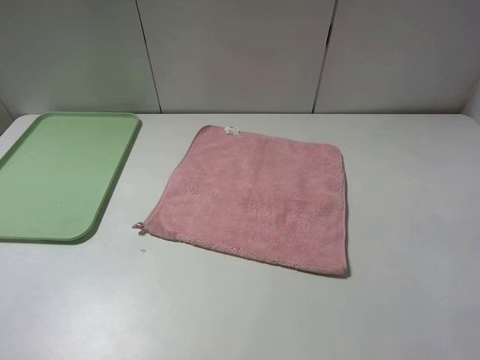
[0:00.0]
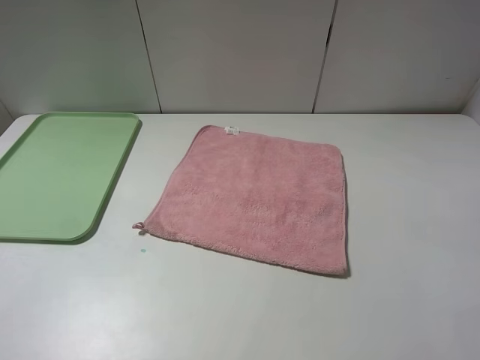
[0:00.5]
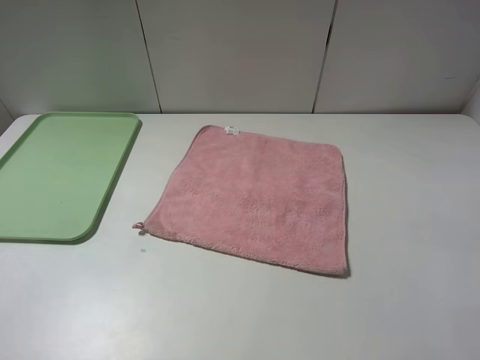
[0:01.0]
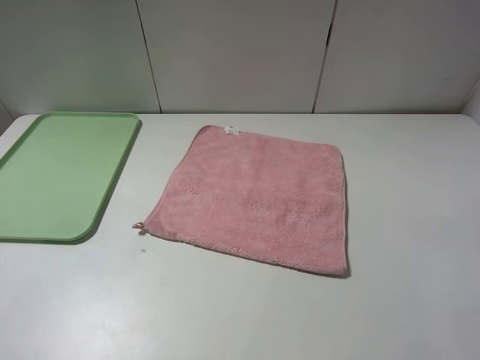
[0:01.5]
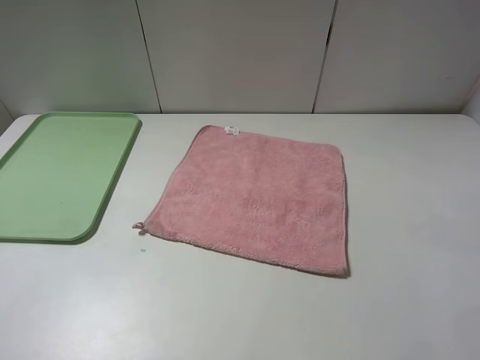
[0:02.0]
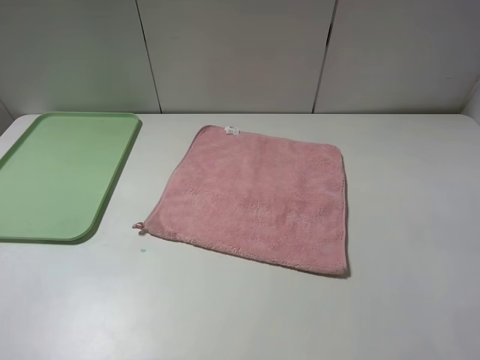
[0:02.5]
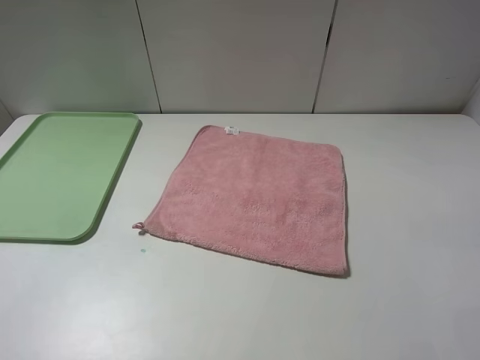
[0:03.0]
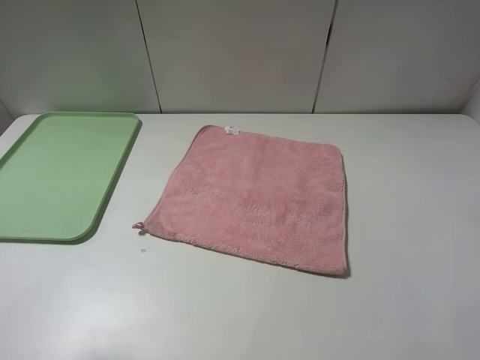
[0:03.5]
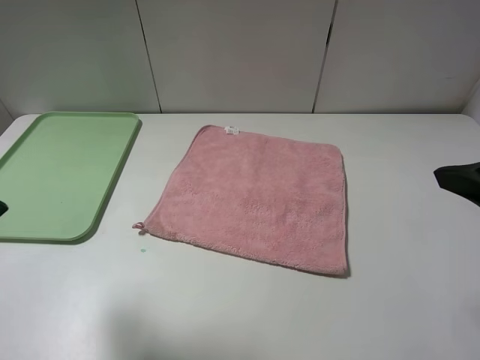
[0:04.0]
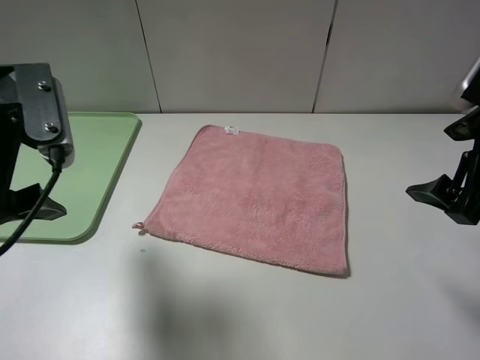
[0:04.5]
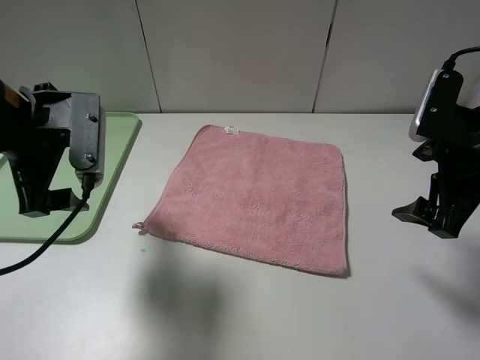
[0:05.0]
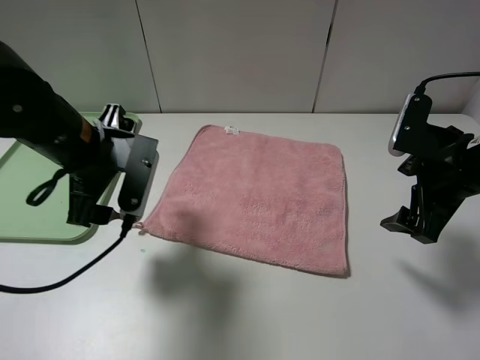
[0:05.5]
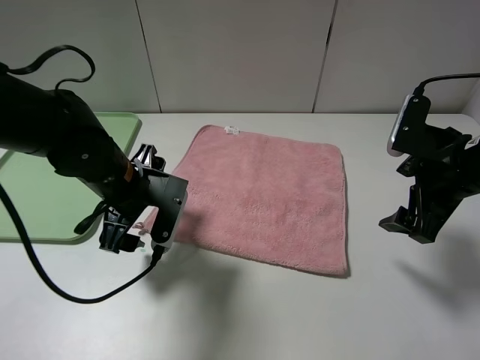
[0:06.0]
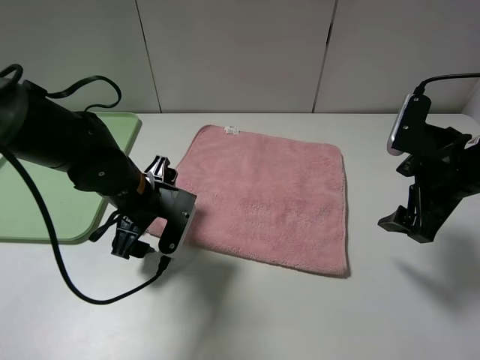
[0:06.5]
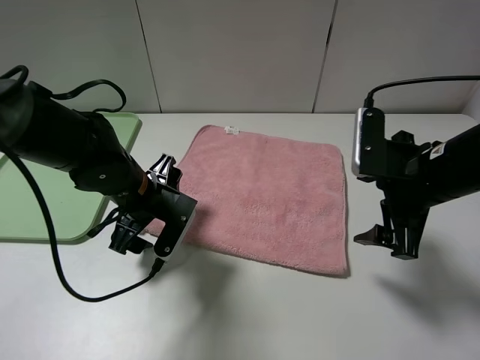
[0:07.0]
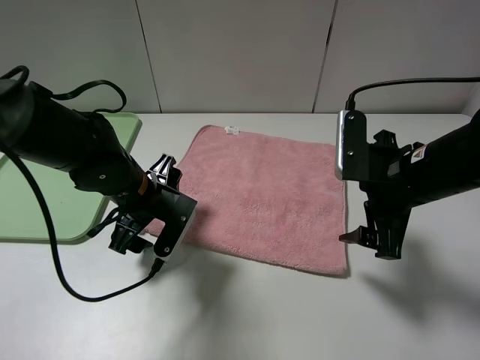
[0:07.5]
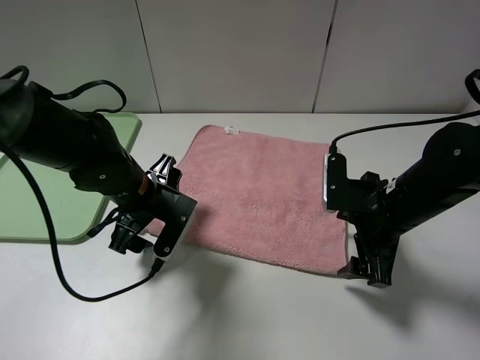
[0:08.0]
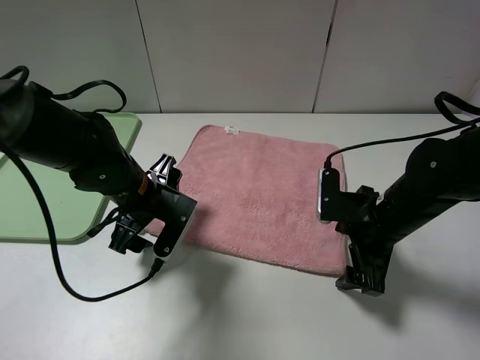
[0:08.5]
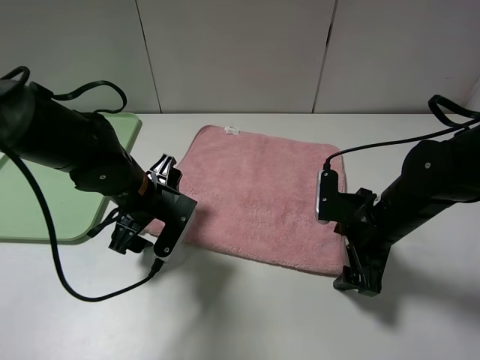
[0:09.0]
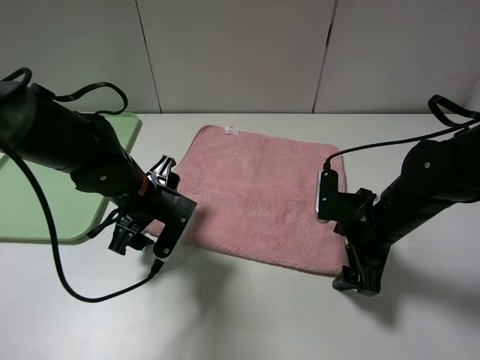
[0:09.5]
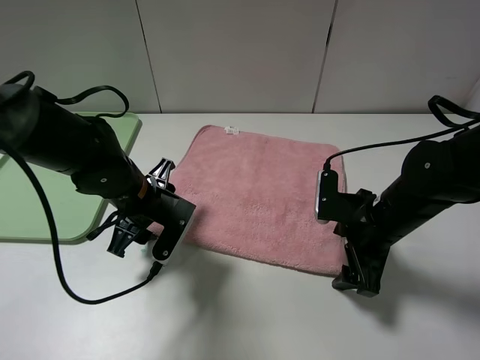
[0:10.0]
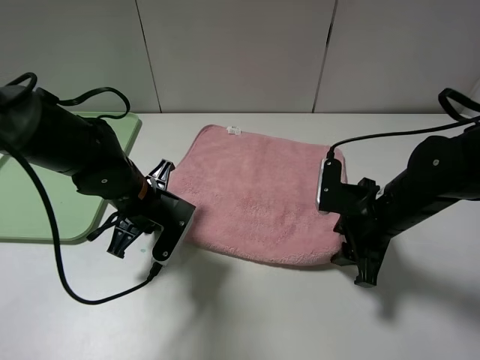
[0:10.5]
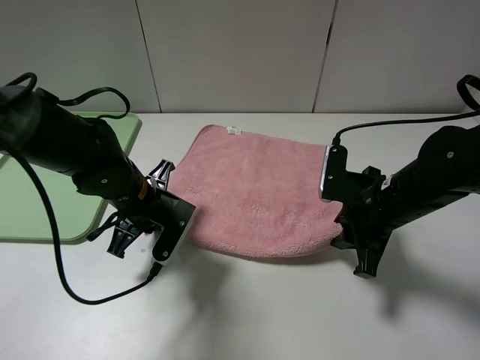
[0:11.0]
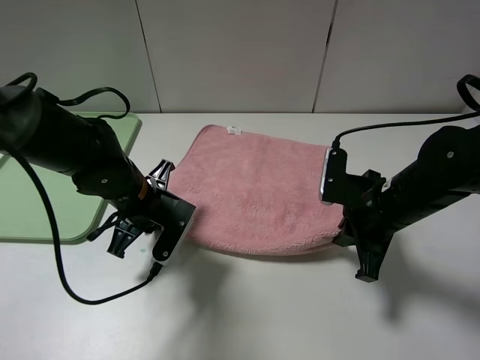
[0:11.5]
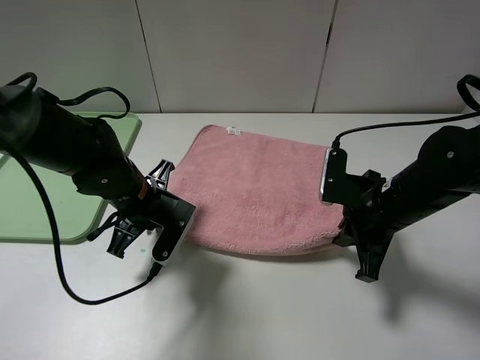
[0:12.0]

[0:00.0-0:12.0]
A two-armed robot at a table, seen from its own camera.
0:00.0 to 0:02.0: Neither gripper changes place.
0:02.0 to 0:04.0: Both grippers travel together forward, approximately 15 cm.
0:04.0 to 0:06.0: The left gripper goes roughly 25 cm downward, to the right and forward, while the right gripper is displaced downward and forward by some 15 cm.
0:06.0 to 0:08.0: The right gripper travels to the left and downward by roughly 10 cm.
0:08.0 to 0:10.0: The grippers make only small movements.
0:10.0 to 0:12.0: The right gripper closes its fingers, while the left gripper closes up.

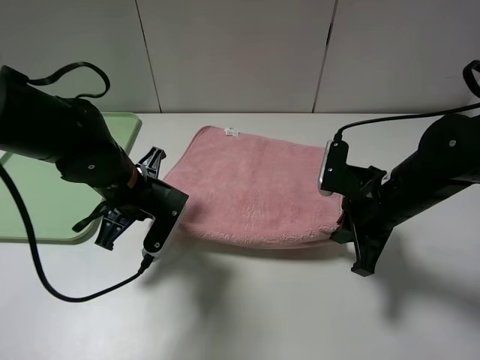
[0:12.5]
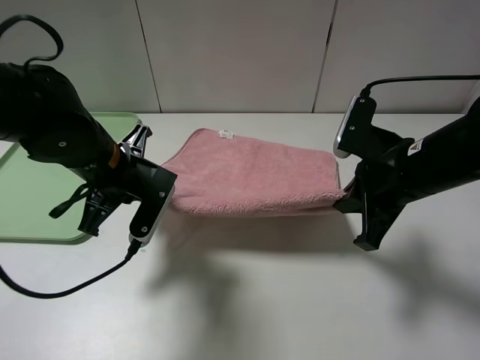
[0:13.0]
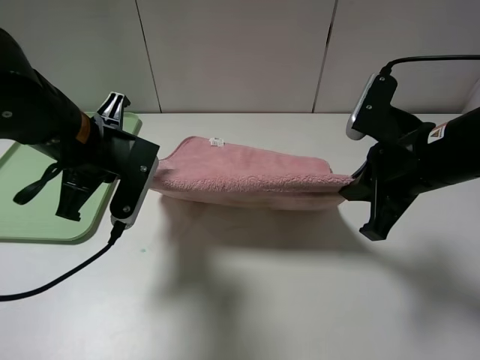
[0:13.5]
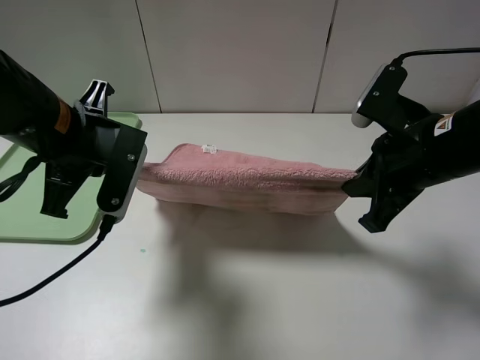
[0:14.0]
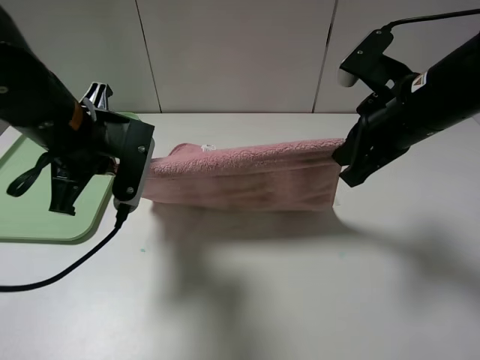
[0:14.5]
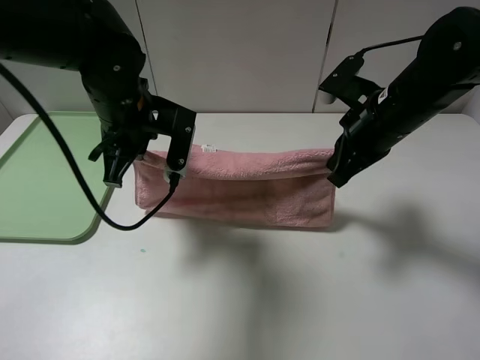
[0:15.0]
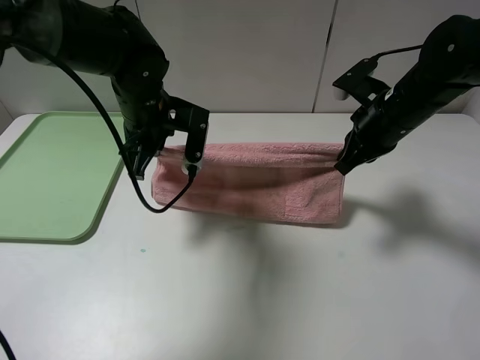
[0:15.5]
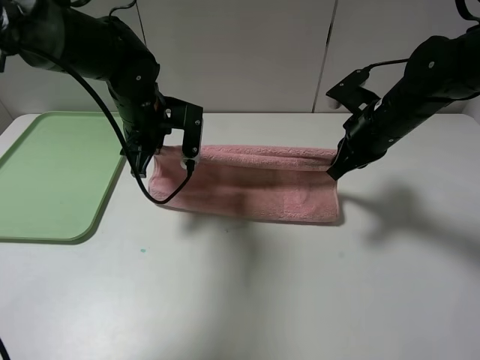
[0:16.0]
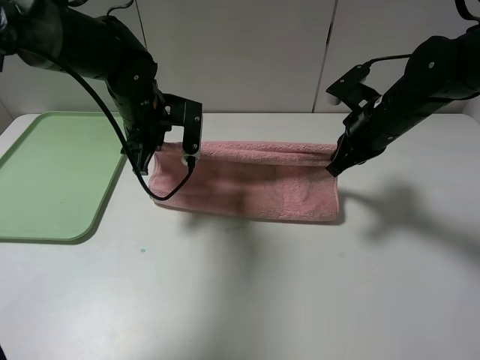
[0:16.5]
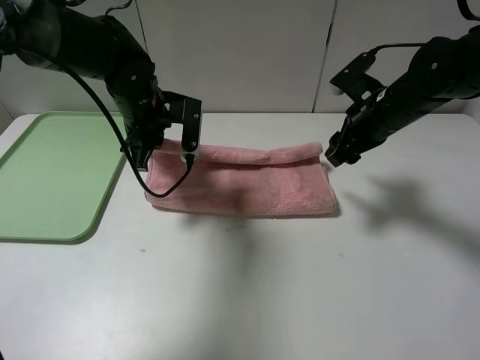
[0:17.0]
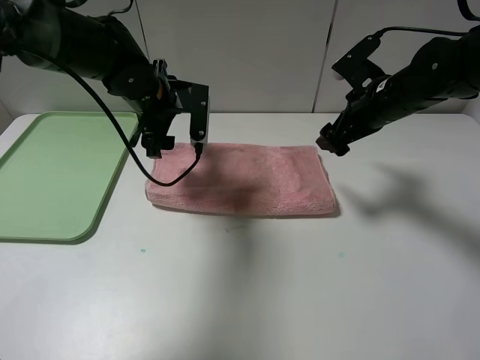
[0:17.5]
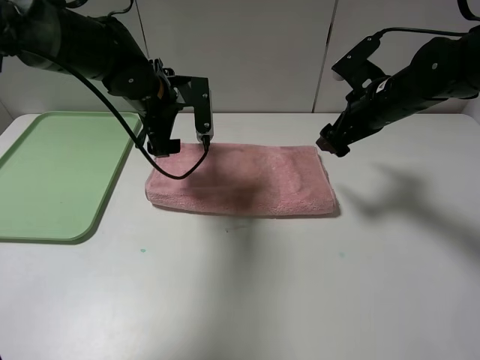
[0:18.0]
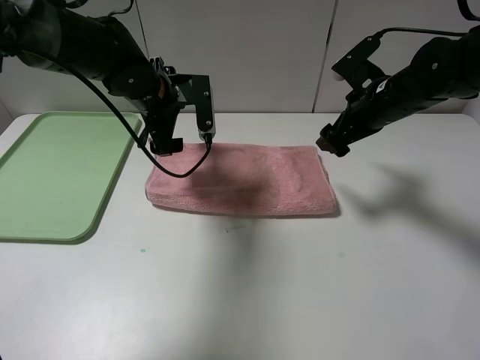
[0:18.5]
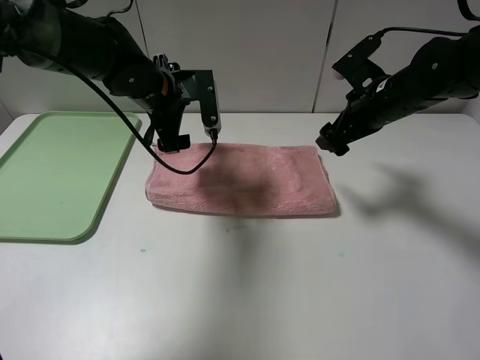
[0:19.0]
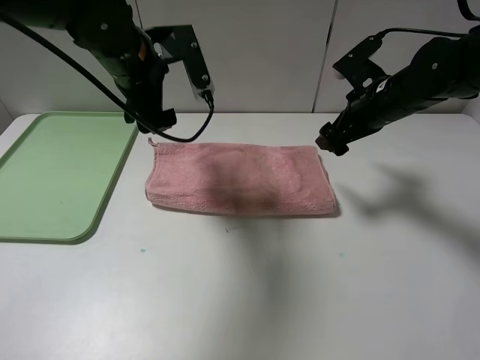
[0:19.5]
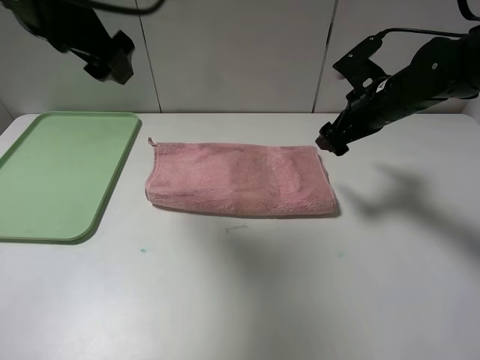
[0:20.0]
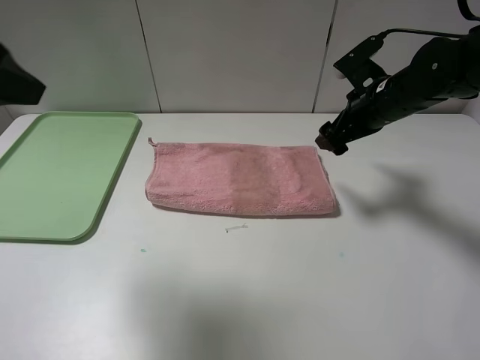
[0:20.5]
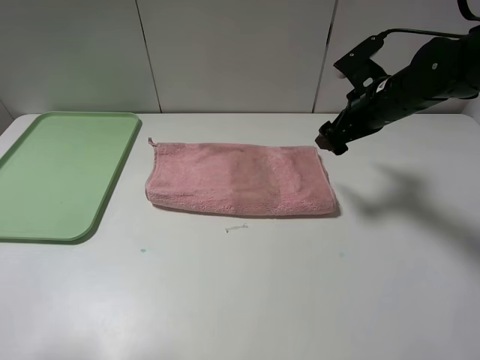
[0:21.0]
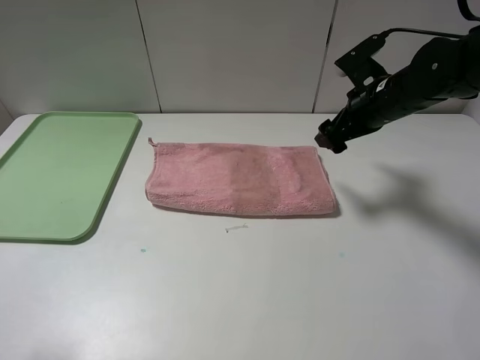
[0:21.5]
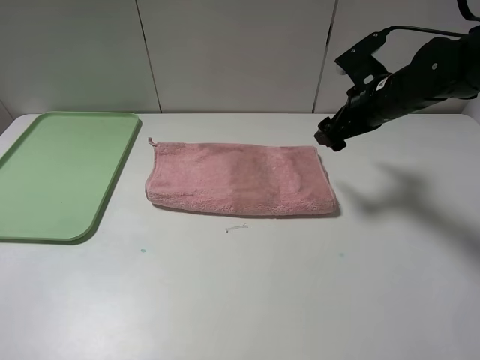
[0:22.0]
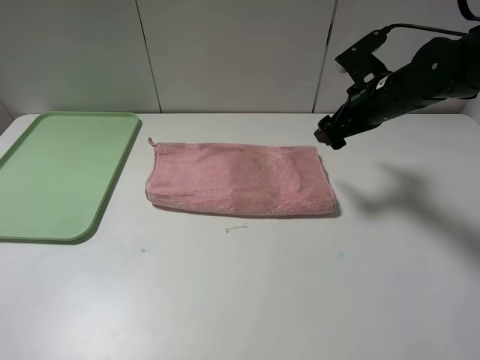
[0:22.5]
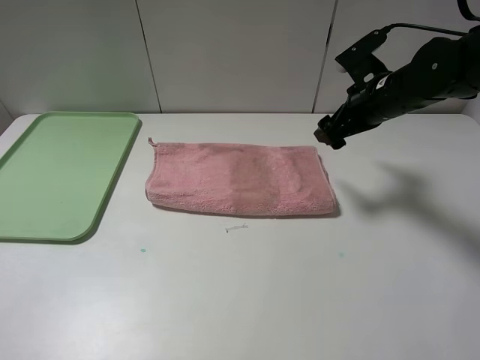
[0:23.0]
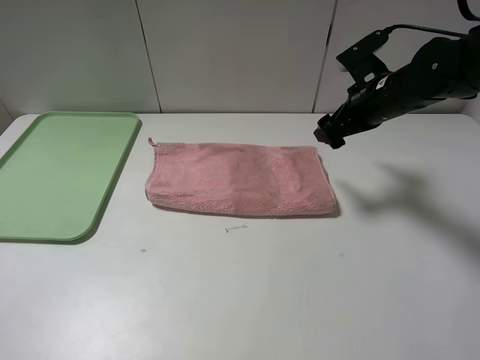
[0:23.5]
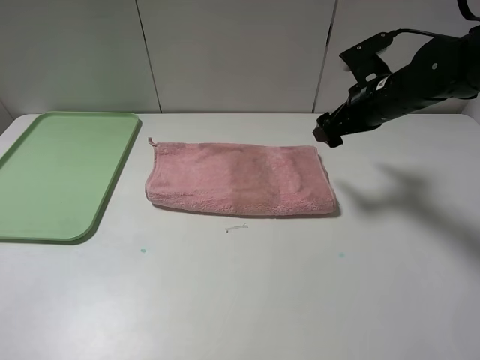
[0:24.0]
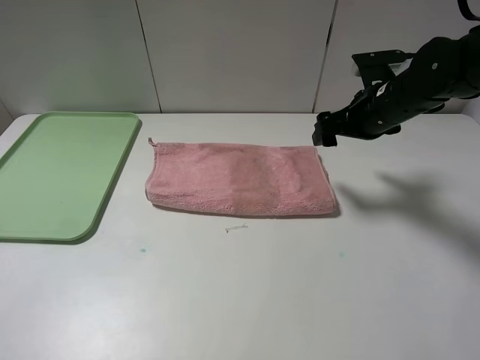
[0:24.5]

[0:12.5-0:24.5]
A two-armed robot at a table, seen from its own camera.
Step, 0:12.5 to 0:17.0: Fold the pink towel upwards.
0:12.5 to 0:14.5: The grippers both shift upward by approximately 10 cm.
0:14.5 to 0:16.5: Both grippers travel together forward and downward, some 10 cm.
0:16.5 to 0:18.5: The left gripper opens up, while the right gripper opens up.
0:18.5 to 0:20.5: The left gripper travels backward, upward and to the left by about 30 cm.
0:20.5 to 0:22.5: The left gripper heads backward, downward and to the left, covering roughly 20 cm.

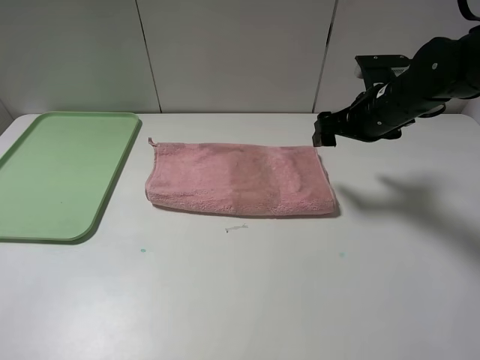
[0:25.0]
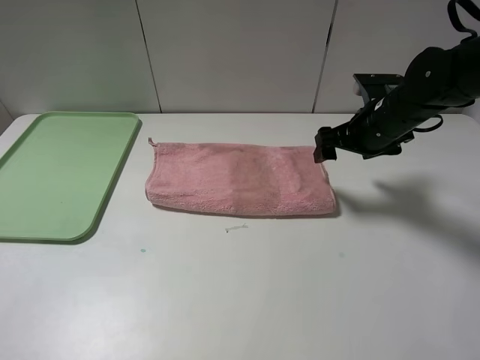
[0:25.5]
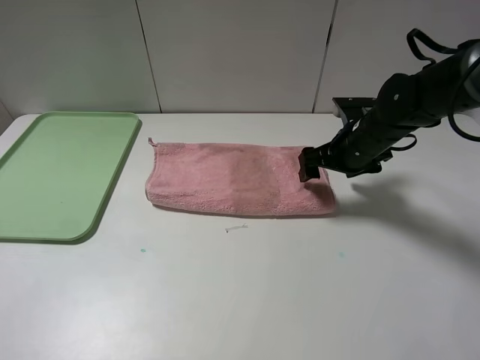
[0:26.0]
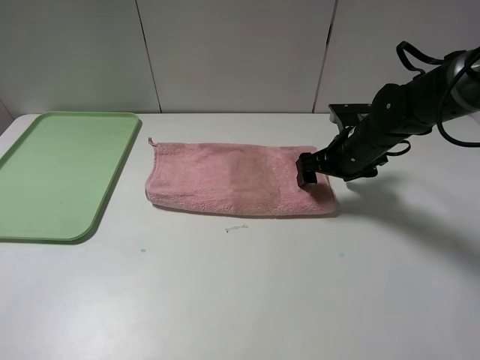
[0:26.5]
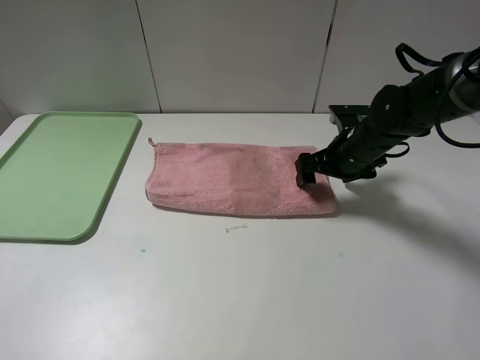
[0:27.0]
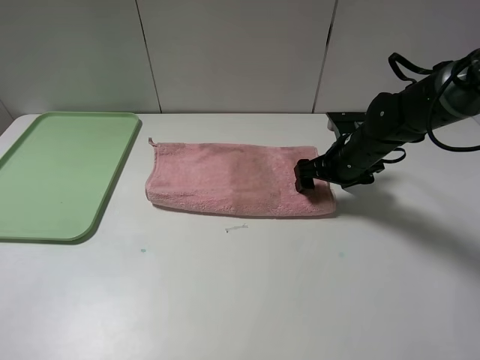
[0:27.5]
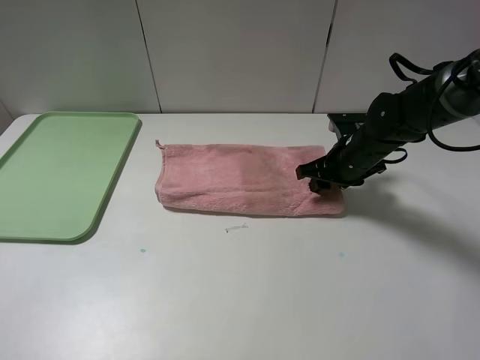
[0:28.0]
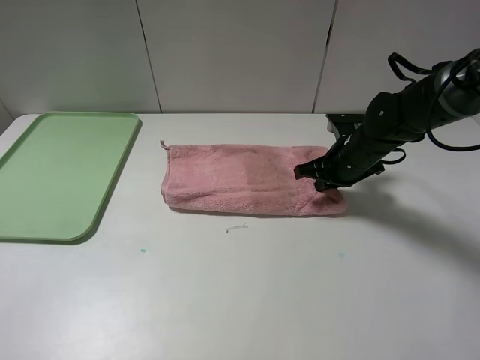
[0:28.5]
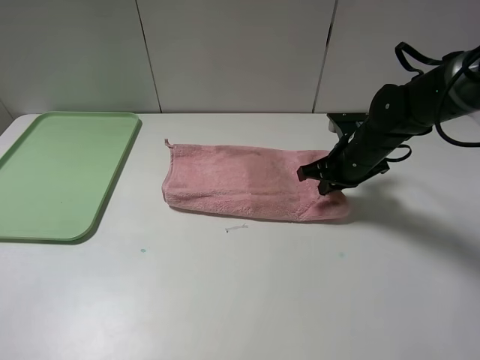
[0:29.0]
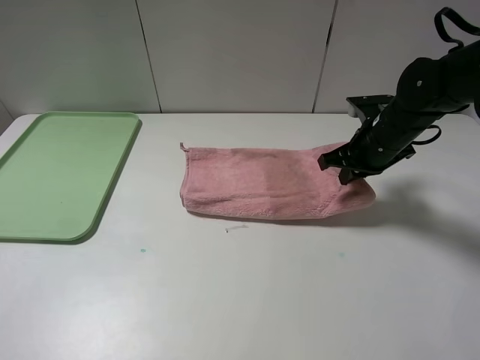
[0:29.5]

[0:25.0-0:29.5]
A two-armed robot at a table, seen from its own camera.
0:25.0 to 0:27.0: The right gripper shifts some 5 cm downward.
0:27.0 to 0:29.5: The right gripper closes its fingers.
